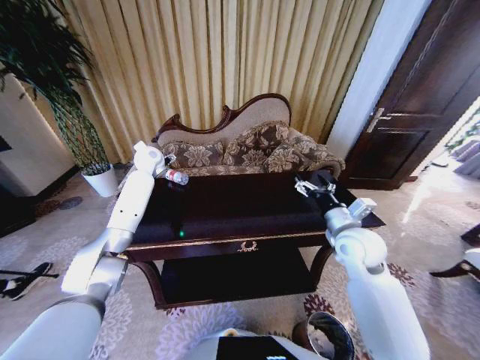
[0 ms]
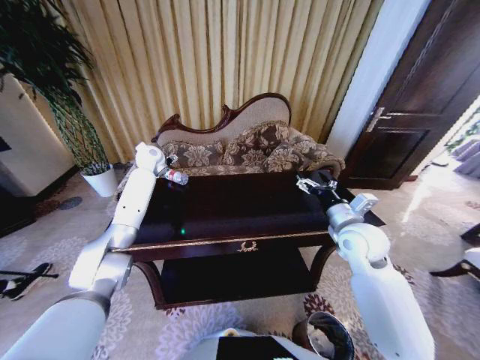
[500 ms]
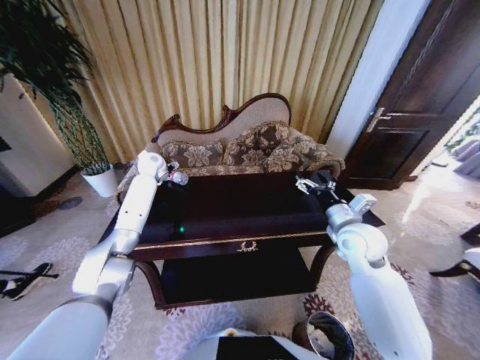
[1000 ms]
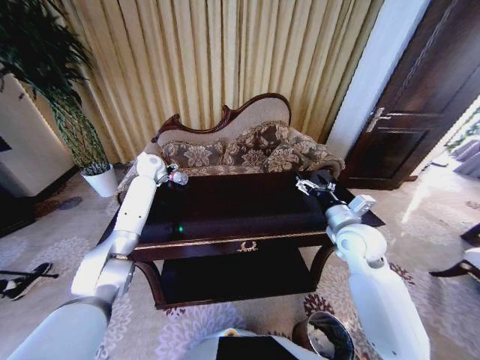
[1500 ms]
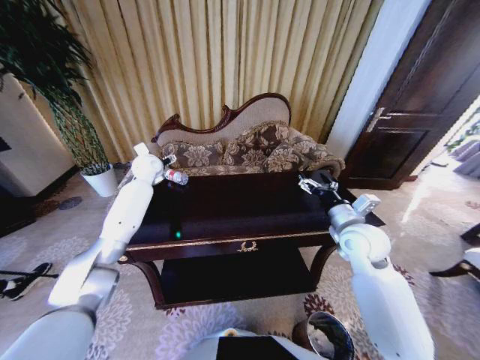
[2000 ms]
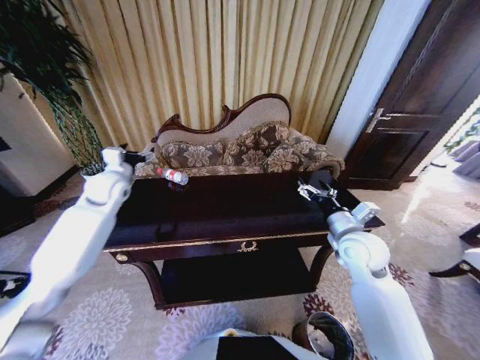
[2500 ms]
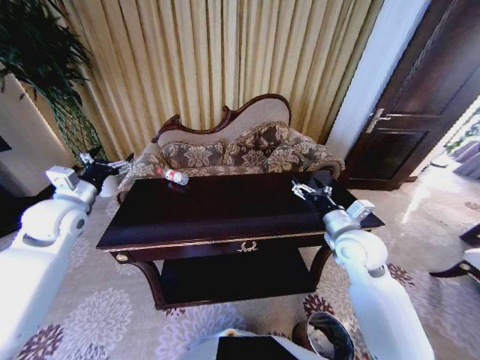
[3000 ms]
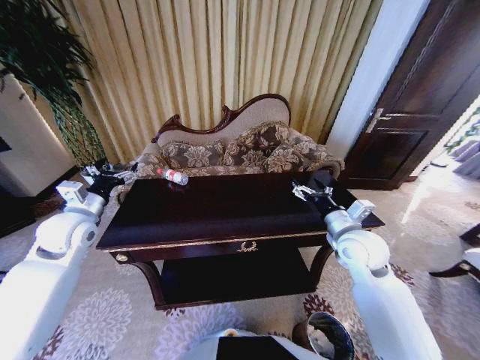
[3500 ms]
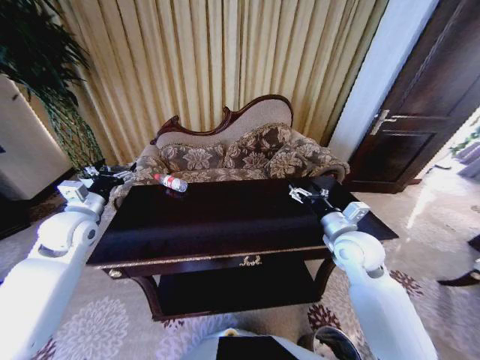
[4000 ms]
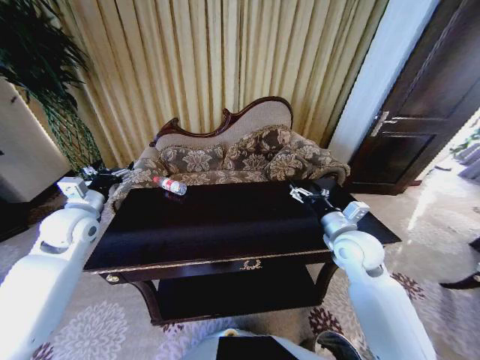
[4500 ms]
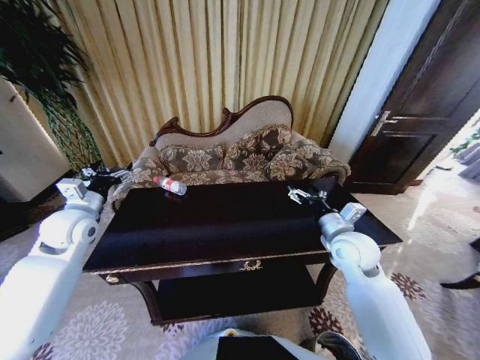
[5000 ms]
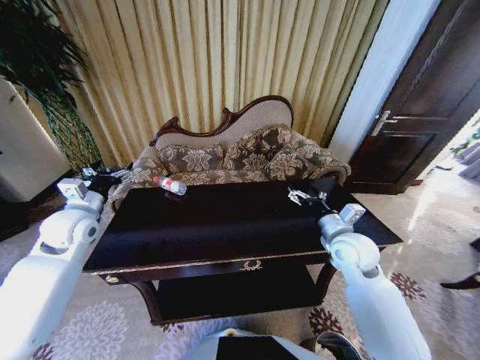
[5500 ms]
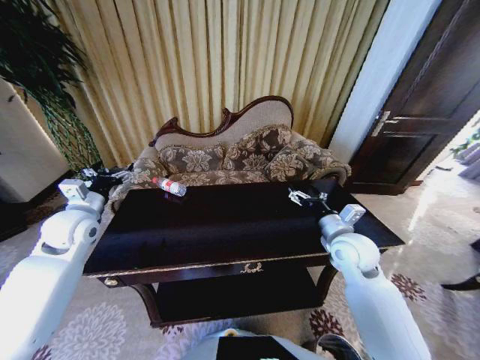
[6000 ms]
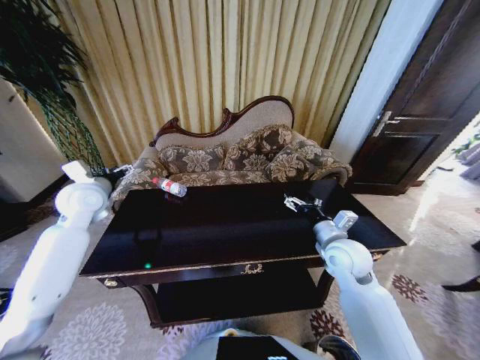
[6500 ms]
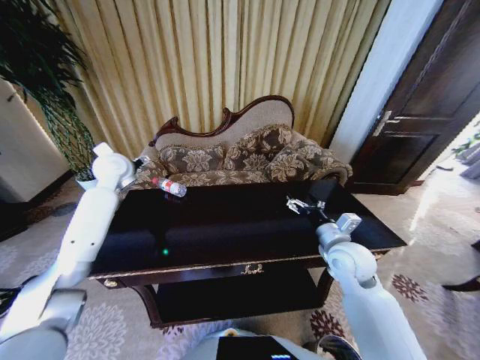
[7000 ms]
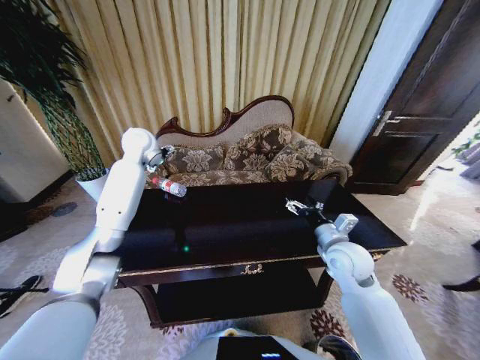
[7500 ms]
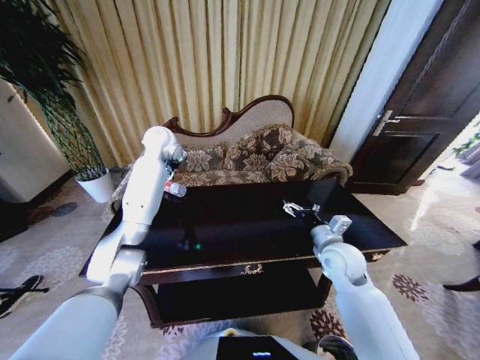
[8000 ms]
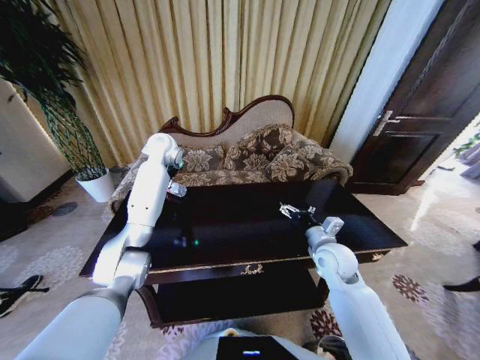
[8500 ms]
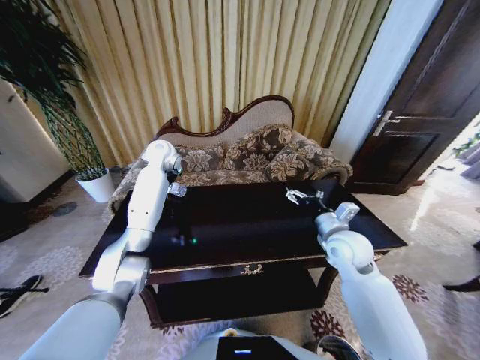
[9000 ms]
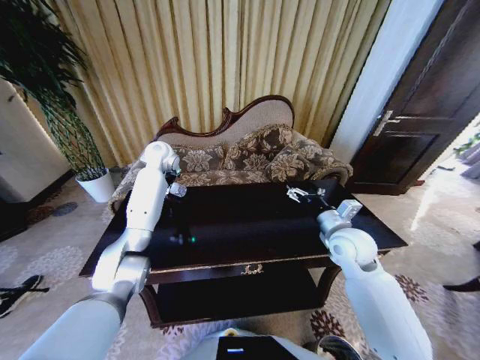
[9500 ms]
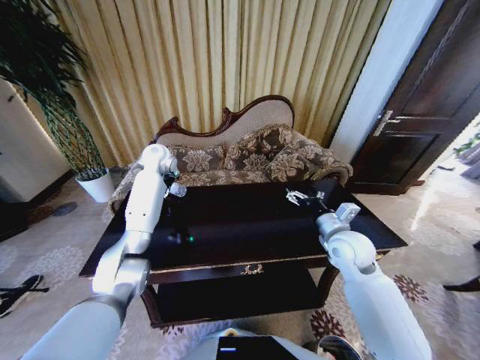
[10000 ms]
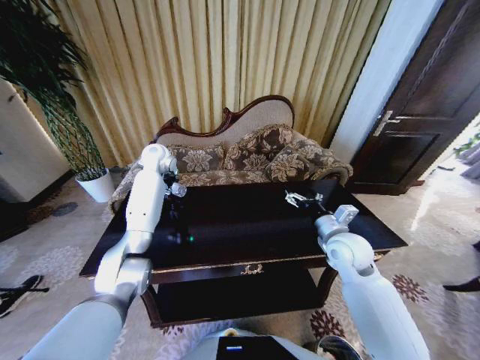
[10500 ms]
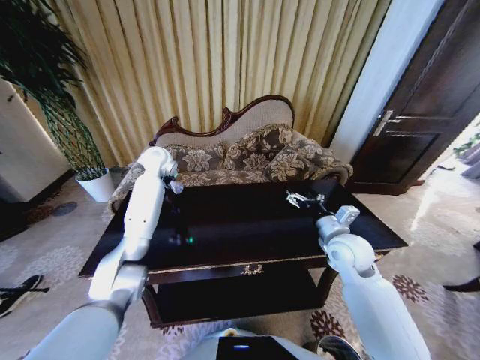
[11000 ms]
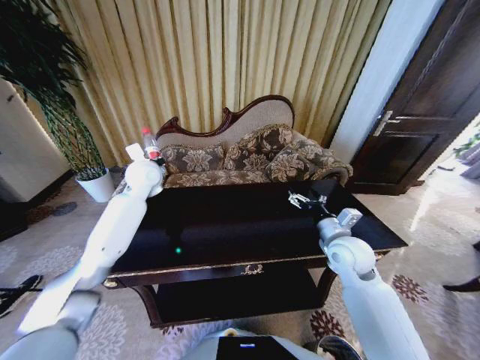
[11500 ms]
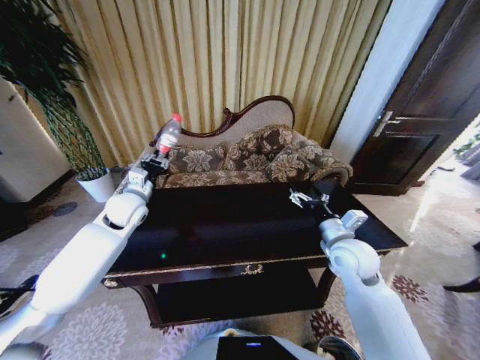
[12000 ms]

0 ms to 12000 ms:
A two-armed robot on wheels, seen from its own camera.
Task of the whole recording: Move to the front of the table and place the trash on the table into the trash bin.
0 ms to 2000 ms: The grippers make only small movements.
2000 ms to 4000 ms: The left gripper moves backward and to the left, roughly 25 cm.
4000 ms to 6000 ms: Neither gripper changes place.
6000 ms to 8000 ms: The left gripper heads forward, to the right and upward, covering about 30 cm.
8000 ms to 10000 ms: The left gripper heads downward, covering roughly 5 cm.
10000 ms to 12000 ms: The left gripper is displaced backward by some 20 cm, and closes up.

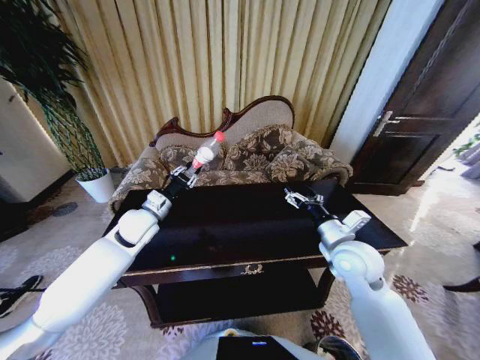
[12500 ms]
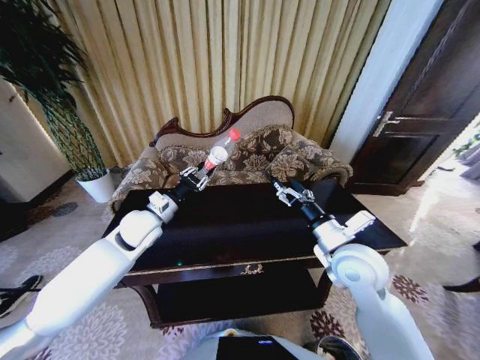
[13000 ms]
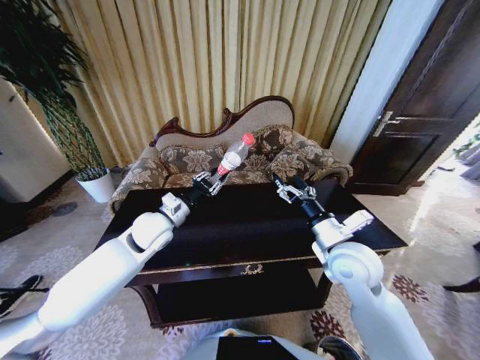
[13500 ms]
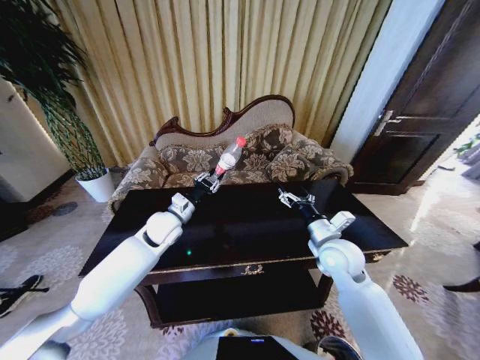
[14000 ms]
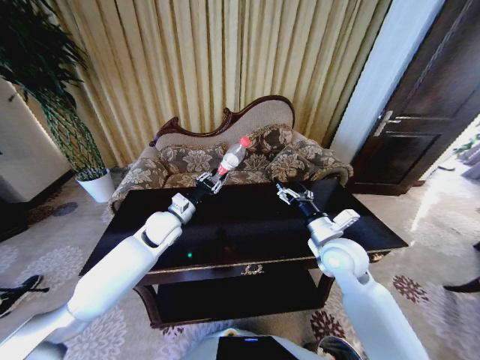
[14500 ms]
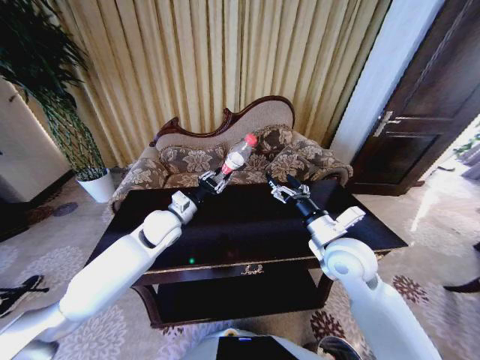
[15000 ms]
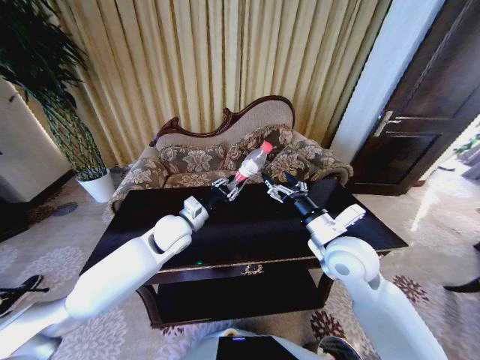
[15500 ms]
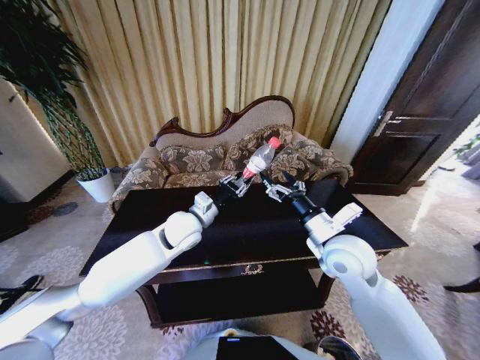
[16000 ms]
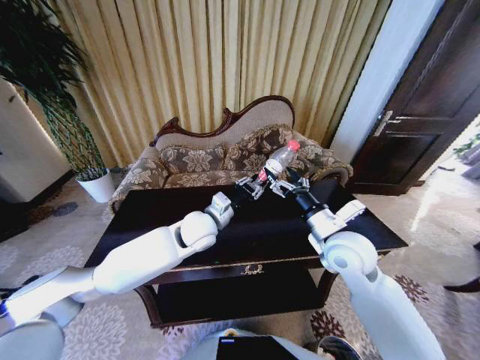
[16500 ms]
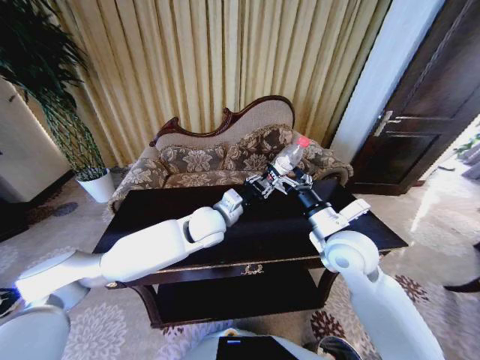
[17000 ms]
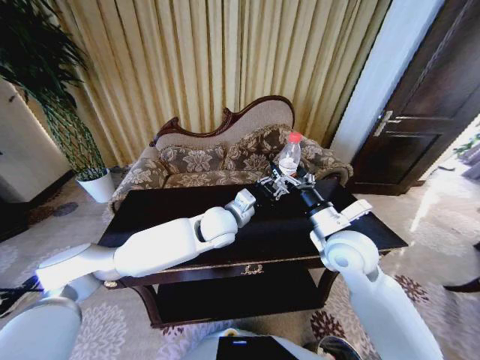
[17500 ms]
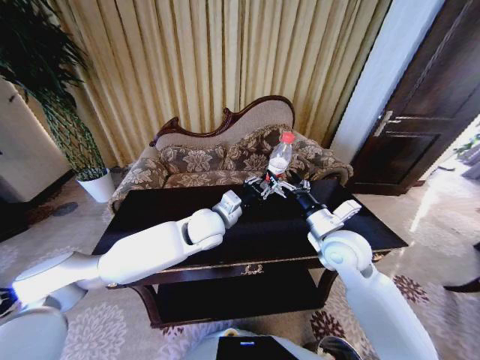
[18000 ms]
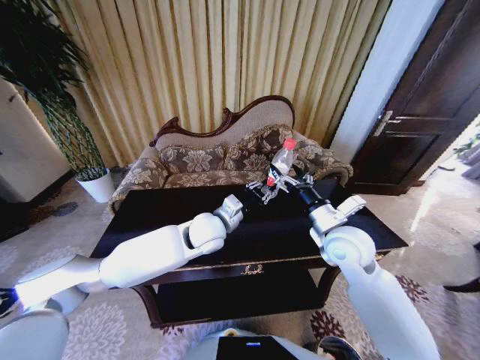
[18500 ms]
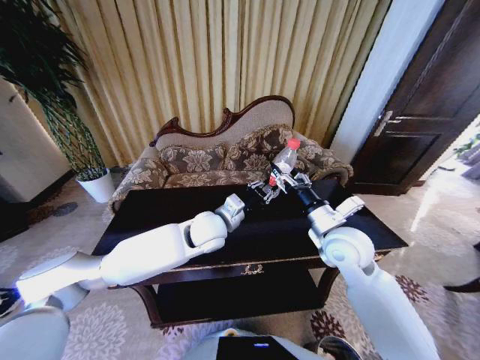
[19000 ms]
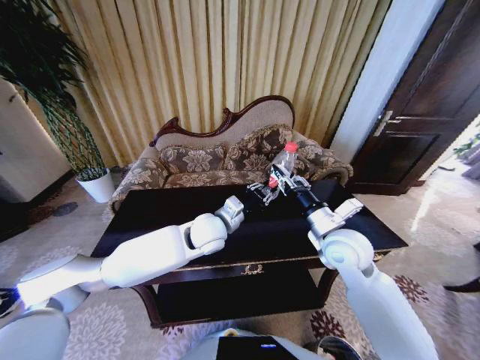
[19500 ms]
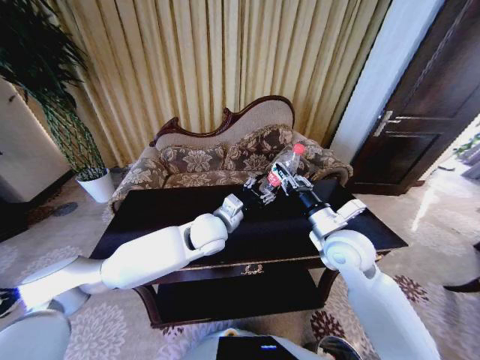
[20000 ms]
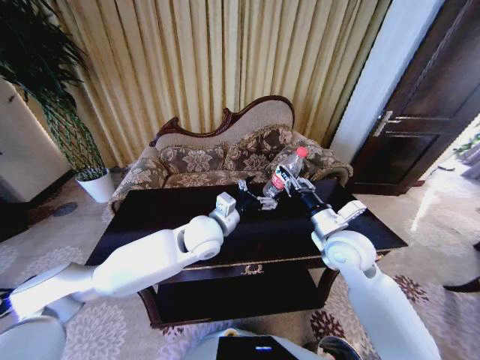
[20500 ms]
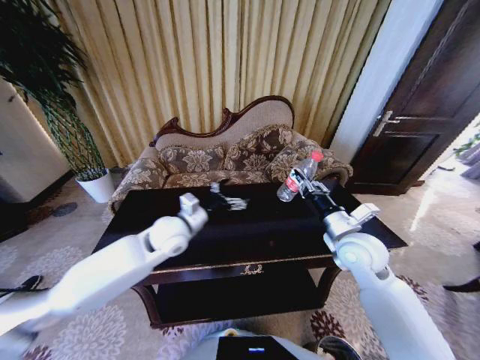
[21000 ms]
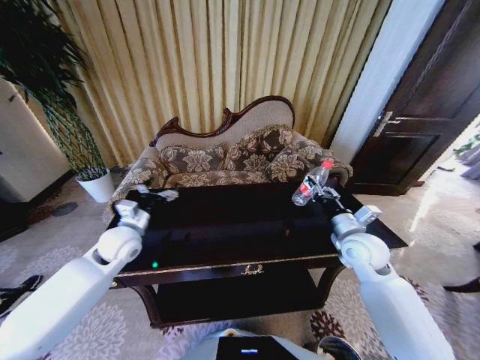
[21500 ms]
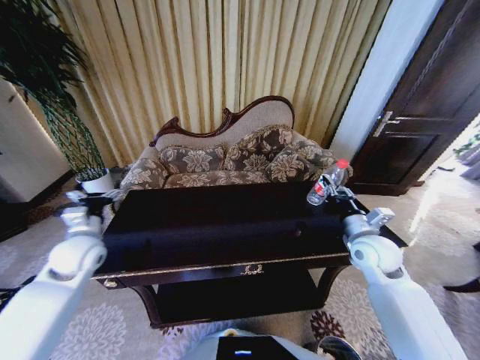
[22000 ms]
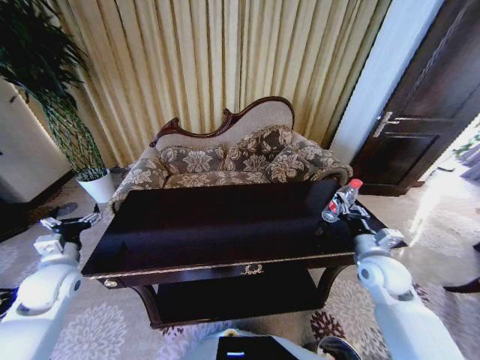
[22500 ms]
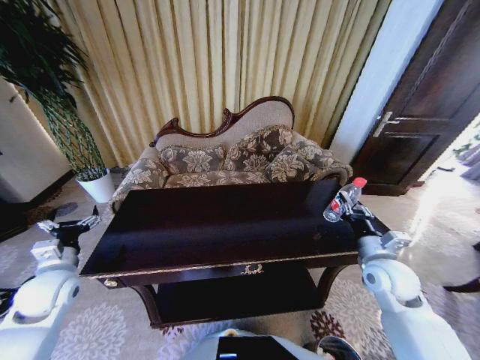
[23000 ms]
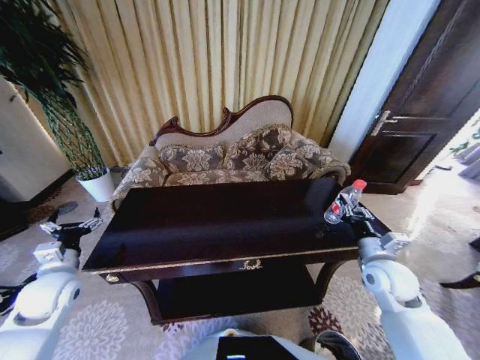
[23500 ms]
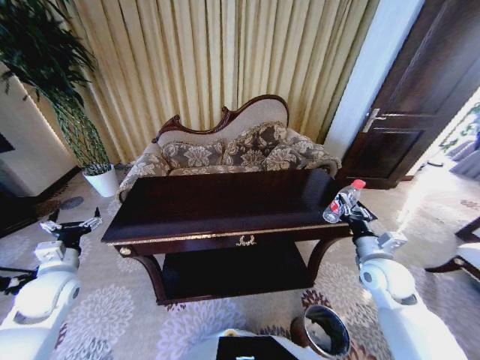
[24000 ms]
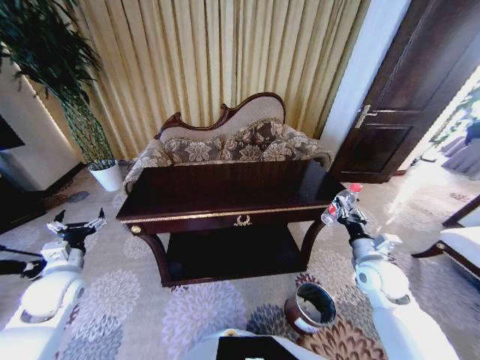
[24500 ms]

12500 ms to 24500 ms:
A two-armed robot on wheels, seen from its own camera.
Task of the whole recording: Move to the front of the table and place the trash on the table into the trash bin.
12500 ms to 14500 ms: The left gripper goes some 5 cm to the right.
14500 ms to 16500 ms: The left gripper heads to the right, covering approximately 10 cm.
16500 ms to 18500 ms: The grippers move only a little.
18500 ms to 20500 ms: The right gripper closes. The left gripper opens its fingers.
20500 ms to 22500 ms: The right gripper goes approximately 15 cm to the right and downward. The left gripper moves to the left, some 35 cm.

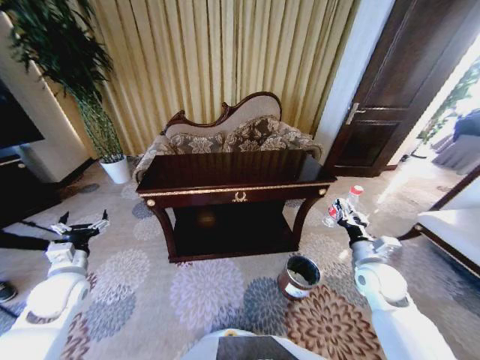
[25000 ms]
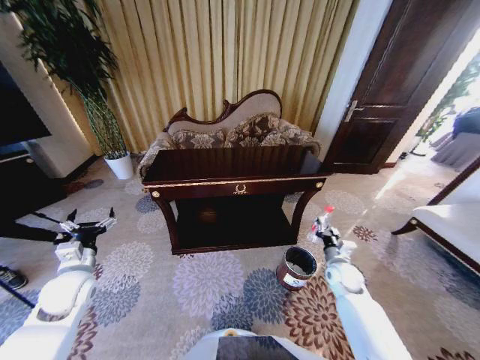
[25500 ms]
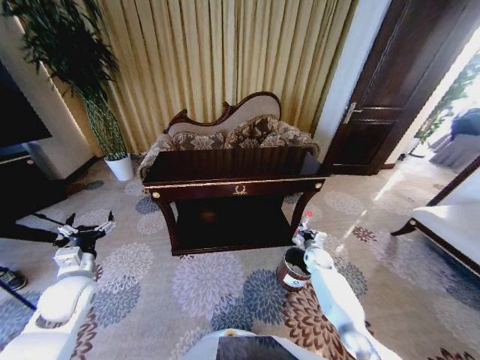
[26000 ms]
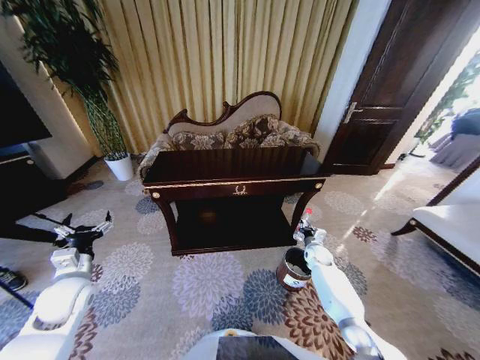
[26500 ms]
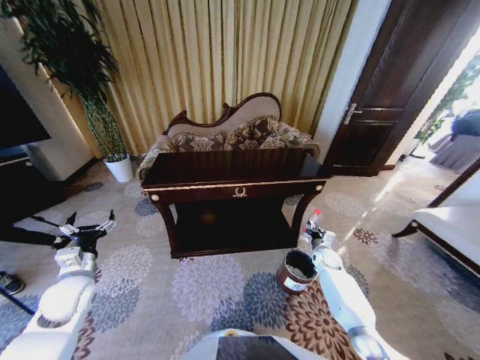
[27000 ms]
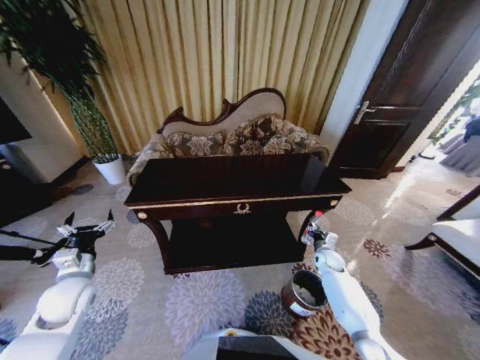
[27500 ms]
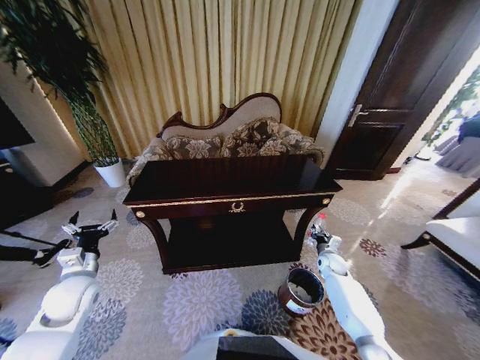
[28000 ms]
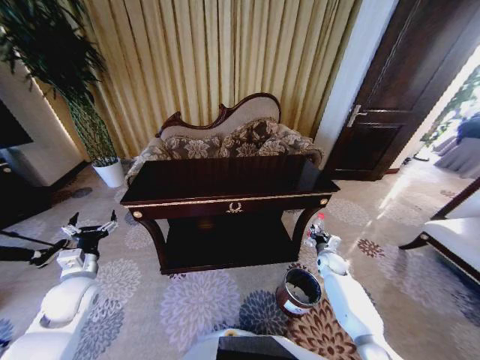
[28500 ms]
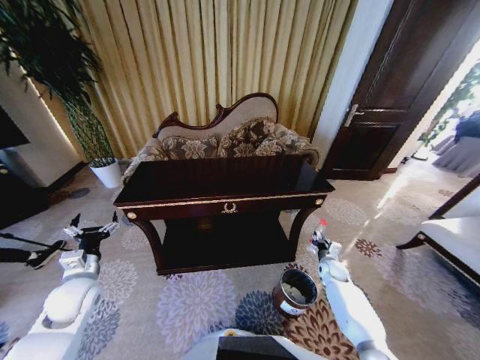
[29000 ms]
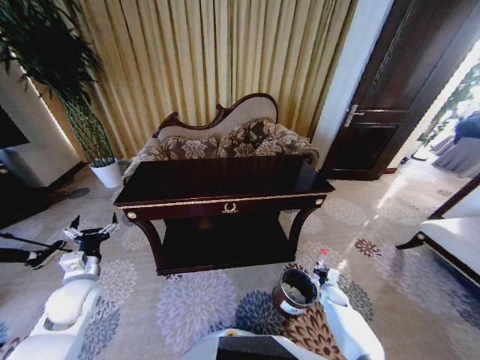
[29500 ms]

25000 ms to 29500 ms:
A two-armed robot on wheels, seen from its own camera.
Task of the whole recording: Move to the front of the table and place the trash on the table into the trash bin.
25000 ms to 27000 ms: The right gripper heads downward and forward, covering approximately 20 cm.
27000 ms to 29500 ms: The right gripper shifts approximately 15 cm downward and backward.
